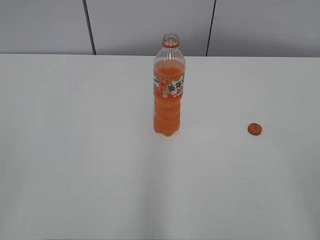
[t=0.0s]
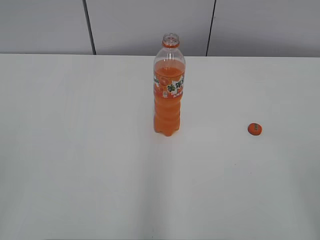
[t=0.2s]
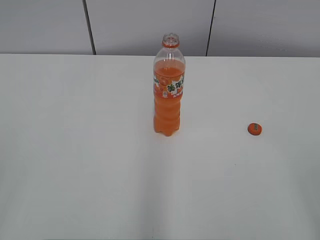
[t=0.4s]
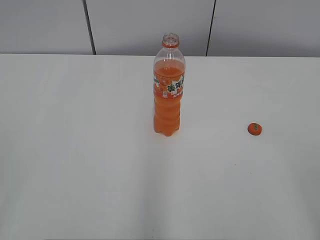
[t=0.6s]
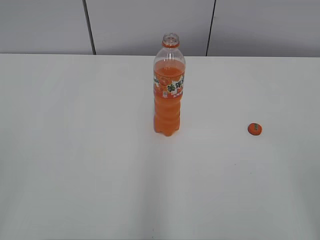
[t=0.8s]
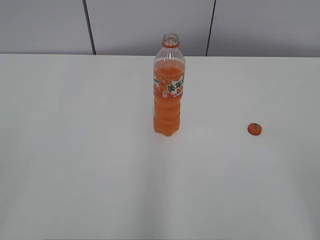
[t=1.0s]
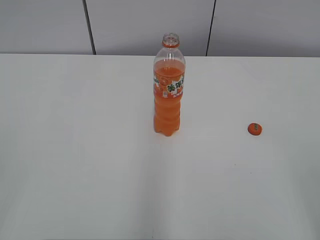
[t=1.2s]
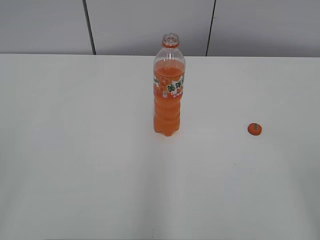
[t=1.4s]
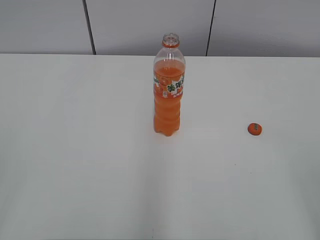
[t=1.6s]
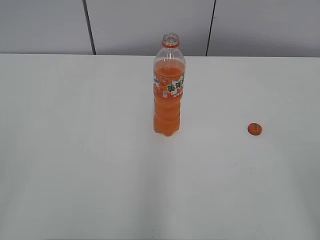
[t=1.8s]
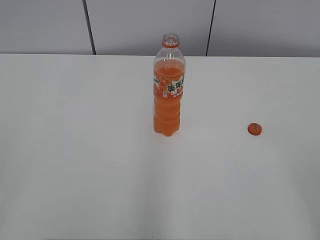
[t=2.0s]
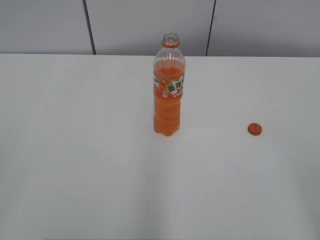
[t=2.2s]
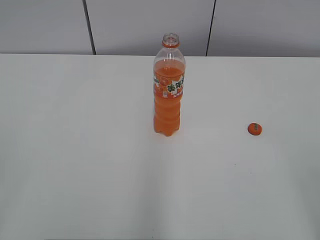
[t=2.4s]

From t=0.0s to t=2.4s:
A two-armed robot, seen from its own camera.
From t=0.0s to t=2.4s: Neither gripper changes place.
